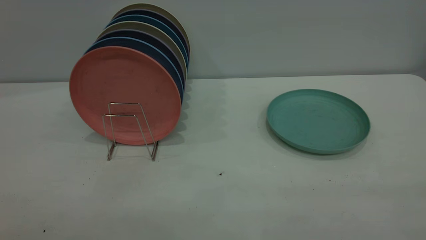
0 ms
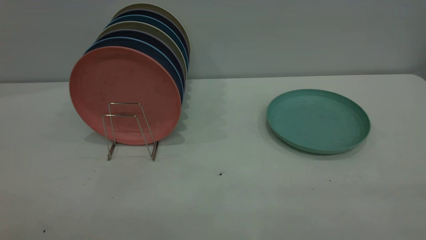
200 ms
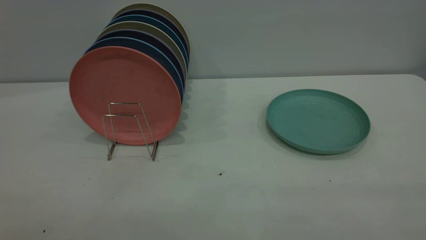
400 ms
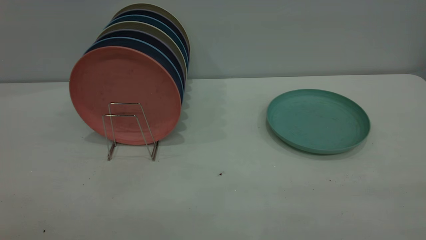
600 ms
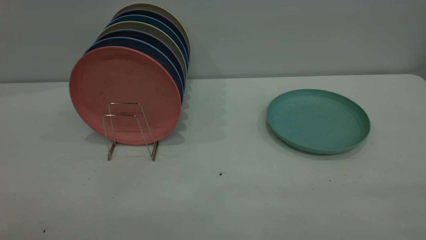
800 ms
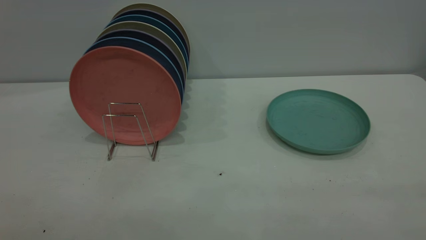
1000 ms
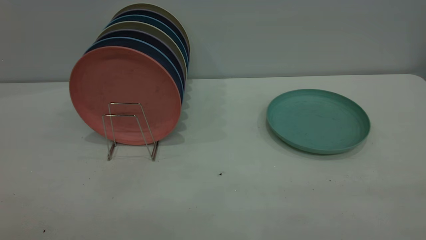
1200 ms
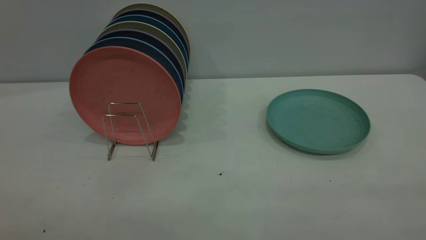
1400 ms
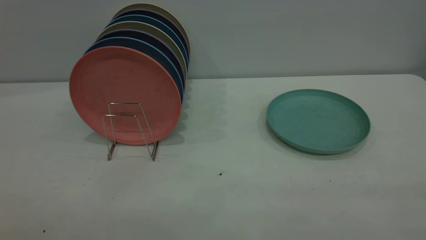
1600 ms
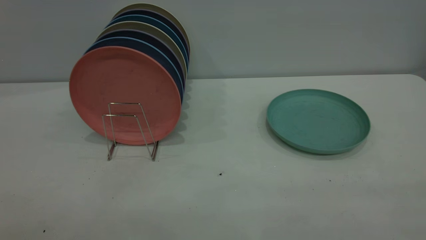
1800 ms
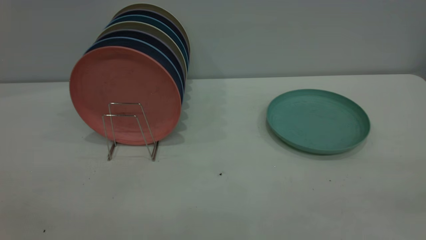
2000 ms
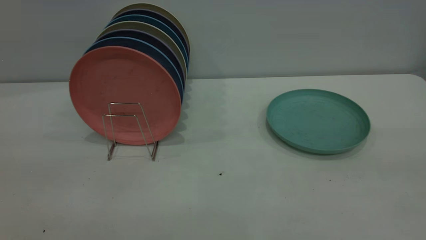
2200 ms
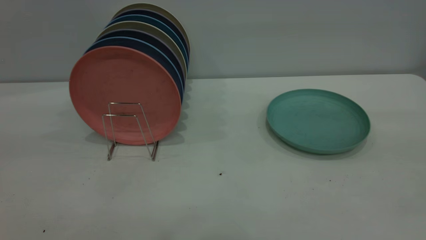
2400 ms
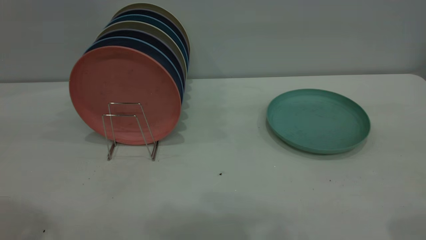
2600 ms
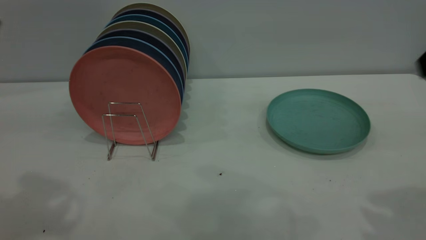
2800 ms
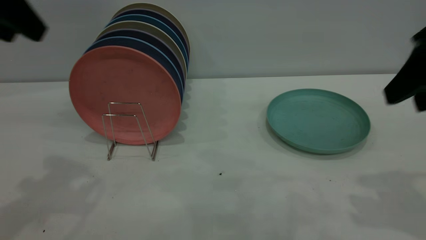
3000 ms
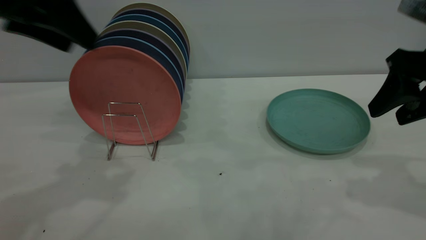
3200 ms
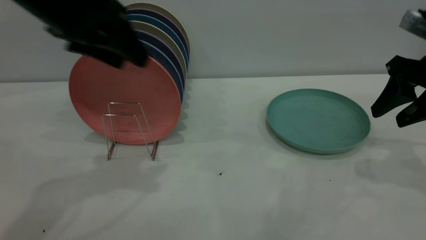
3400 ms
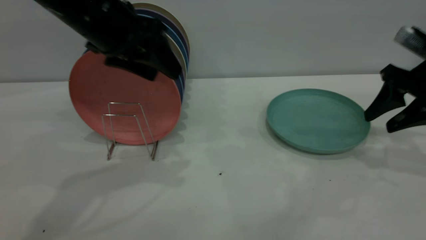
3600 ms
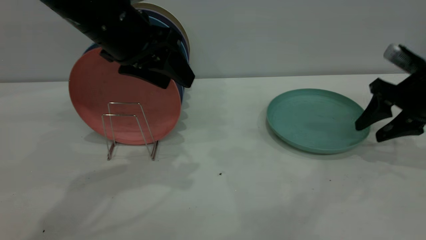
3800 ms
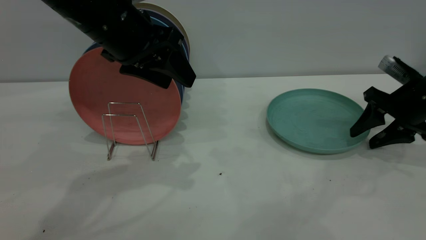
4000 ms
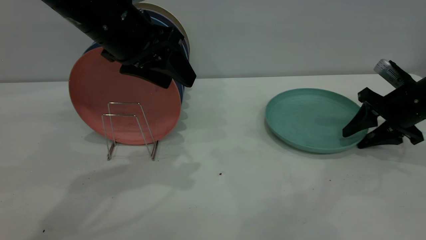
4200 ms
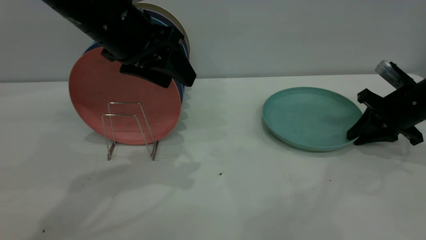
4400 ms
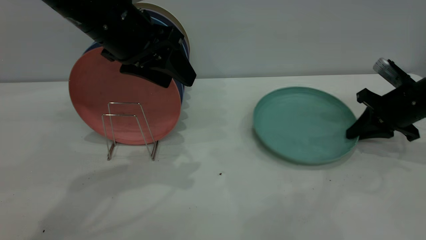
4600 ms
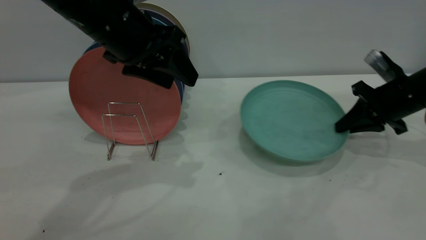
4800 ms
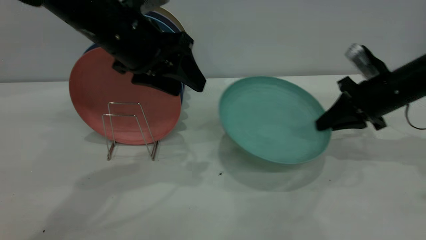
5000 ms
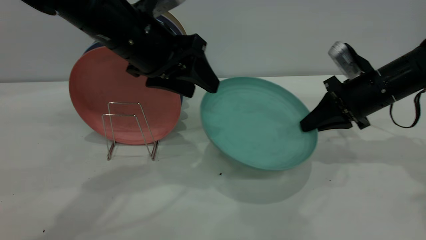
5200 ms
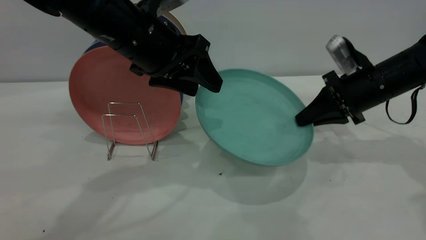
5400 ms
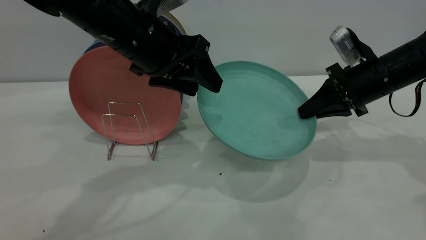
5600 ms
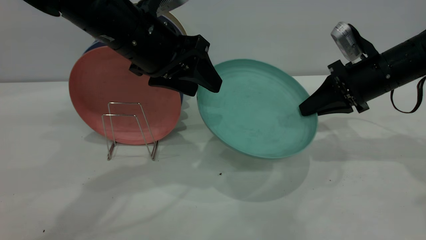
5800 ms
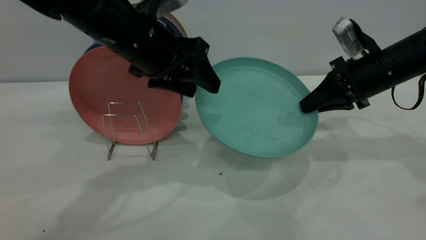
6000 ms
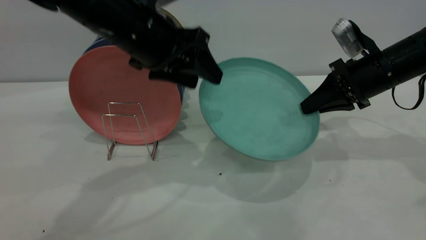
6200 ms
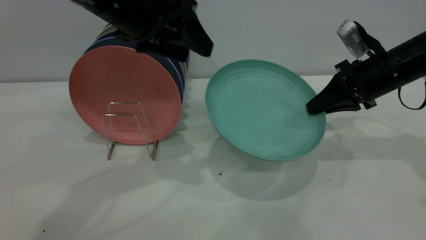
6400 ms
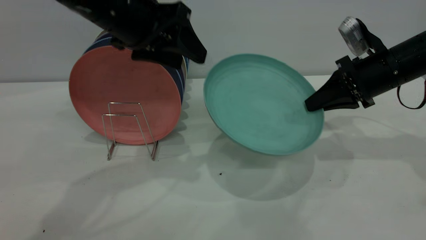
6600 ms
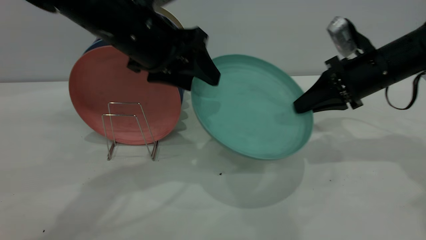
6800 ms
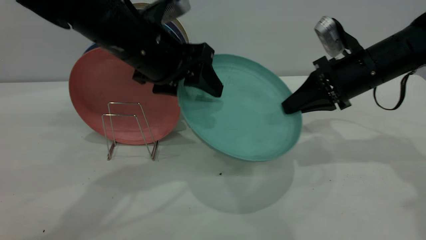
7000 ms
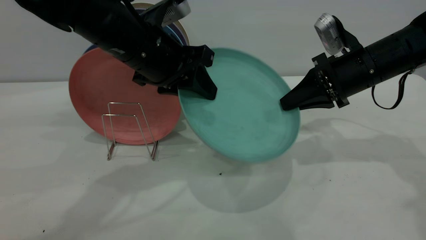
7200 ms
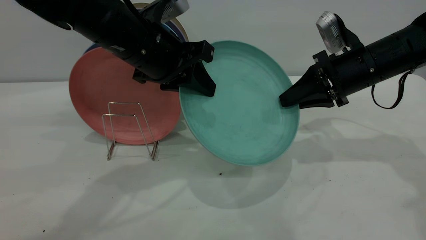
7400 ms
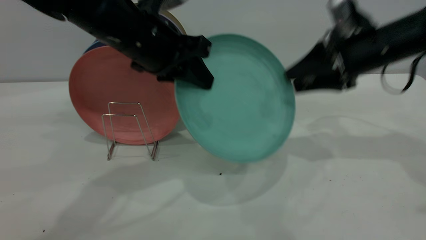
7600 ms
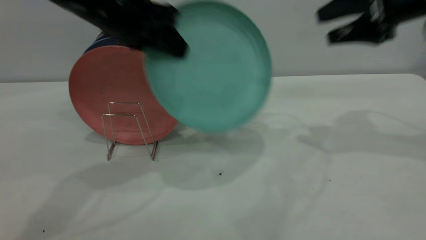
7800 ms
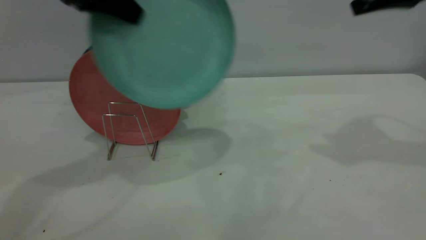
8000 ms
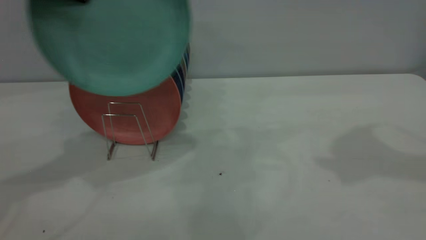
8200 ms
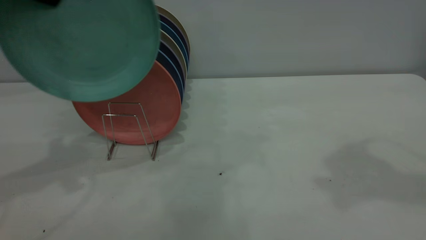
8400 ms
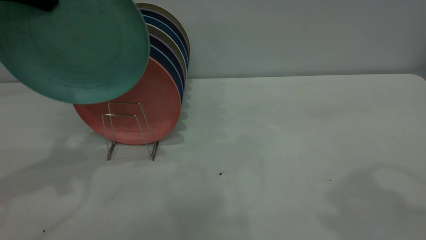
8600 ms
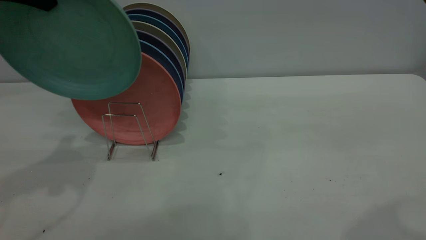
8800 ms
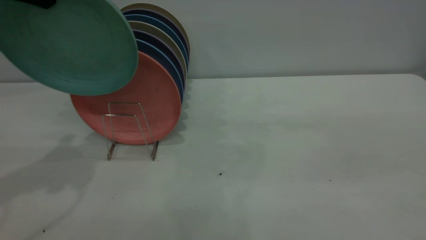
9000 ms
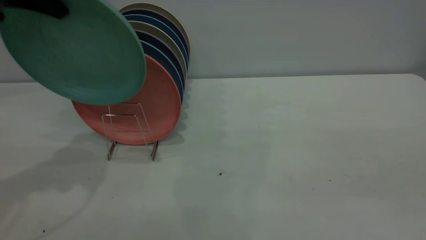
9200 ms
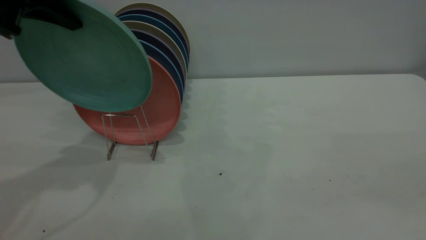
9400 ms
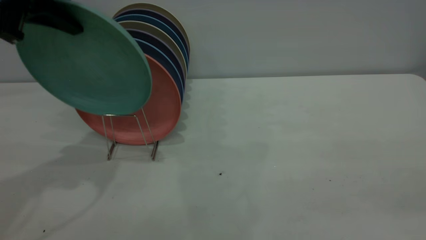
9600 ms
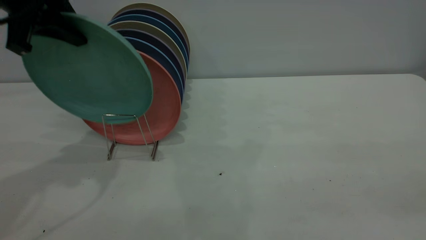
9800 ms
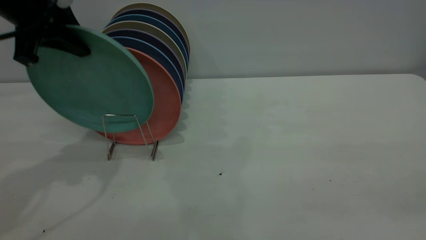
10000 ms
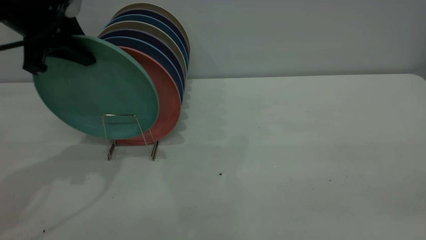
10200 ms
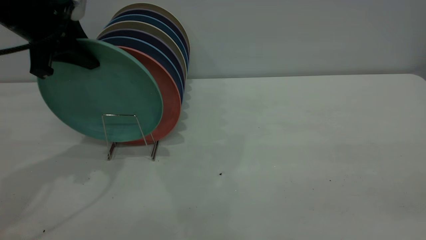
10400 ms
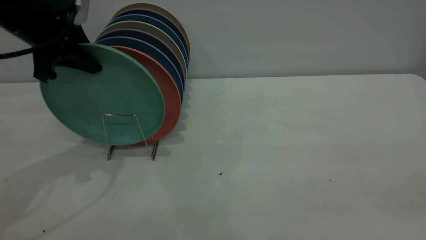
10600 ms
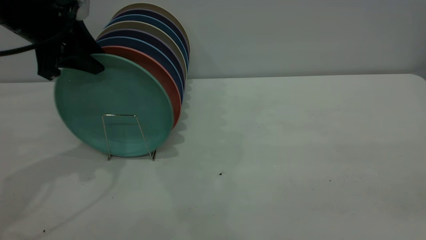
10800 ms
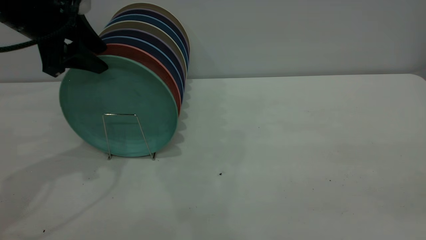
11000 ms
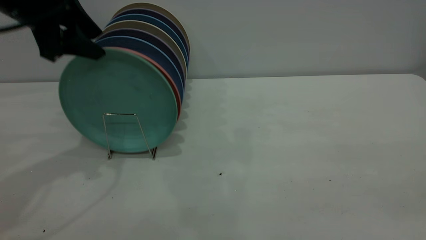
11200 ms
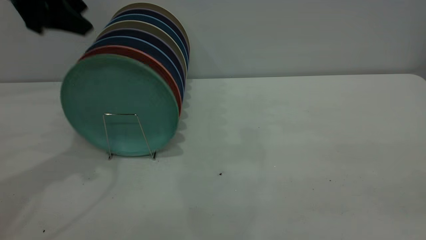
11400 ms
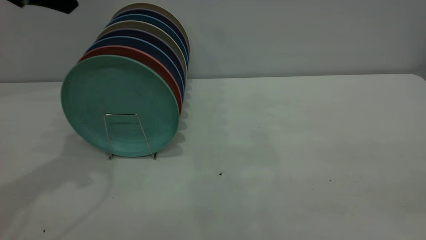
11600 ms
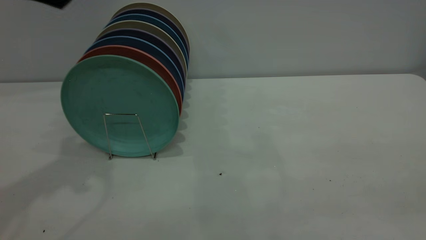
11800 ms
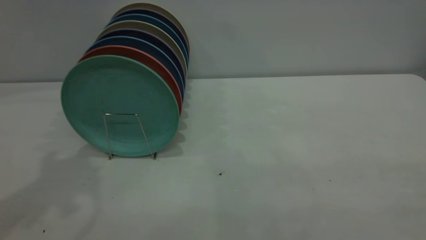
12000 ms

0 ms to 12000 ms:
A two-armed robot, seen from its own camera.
Task of the whole recording: the right gripper grasp the green plate, the right gripper pass the green plate to the left gripper, and the left gripper place the green plate on the plate rack.
Step, 0 ms to 4800 ms: Pick up the plate with the right gripper.
Step, 5000 ms to 7400 ms: Pass the plate from the right gripper to the left gripper.
Step, 7800 ms to 11400 ms: Place the plate on the shelf.
0 ms to 1600 ms: The two grippers keep their place.
1600 ms to 3000 ms: Both grippers move forward, some 30 cm.
3000 ms to 4400 ms: The left gripper travels to the right, downward and forward by about 15 cm, while the right gripper goes some 25 cm downward and forward, and closes up.
4400 ms to 6000 ms: The right gripper goes roughly 10 cm to the left and upward.
6000 ms to 7600 ms: The right gripper heads upward, covering some 5 cm, and opens up, while the left gripper closes up.
7600 ms to 9000 ms: The right gripper heads backward and upward, covering roughly 35 cm; the left gripper heads to the left and upward, covering roughly 20 cm.
9000 ms to 10400 ms: The left gripper goes approximately 10 cm downward.
10400 ms to 12000 ms: The left gripper travels upward and backward by some 20 cm, and opens its fingers.

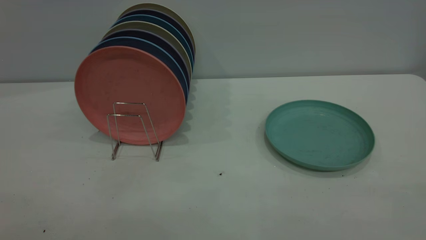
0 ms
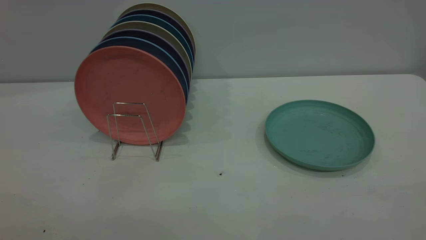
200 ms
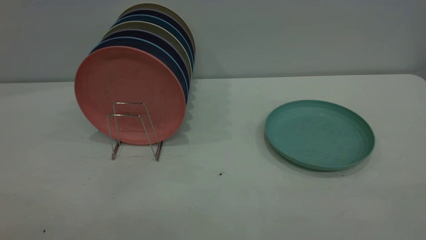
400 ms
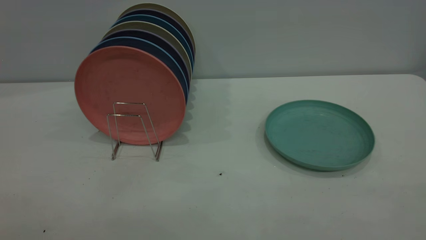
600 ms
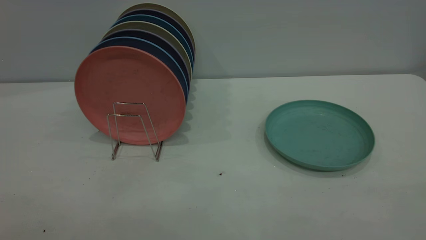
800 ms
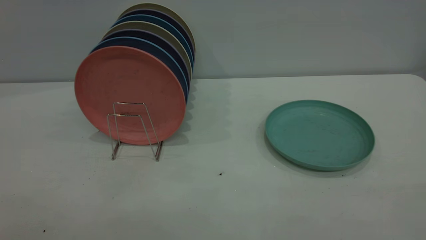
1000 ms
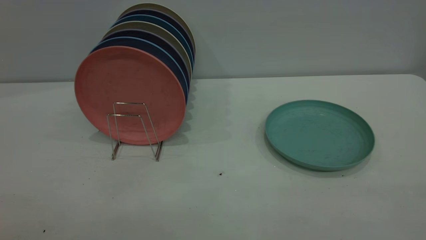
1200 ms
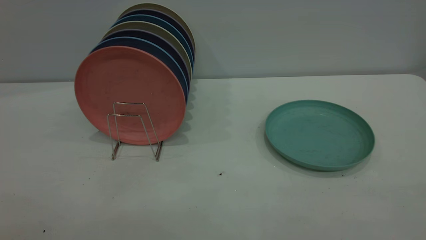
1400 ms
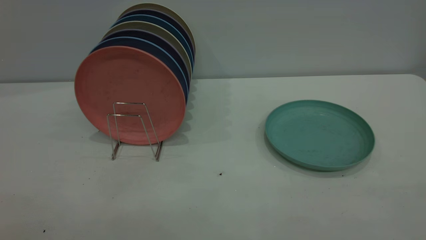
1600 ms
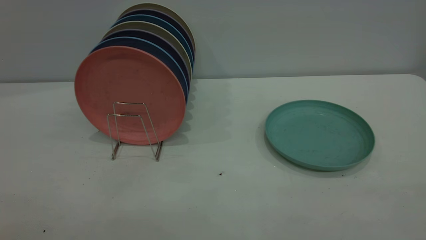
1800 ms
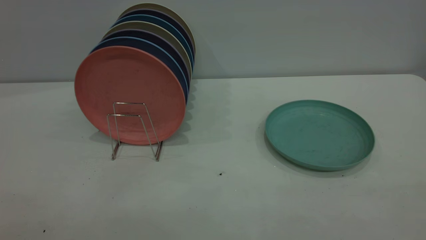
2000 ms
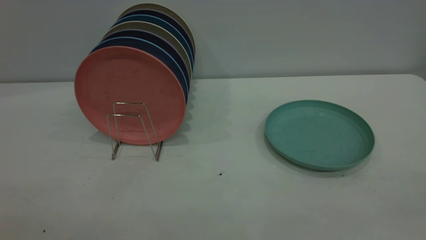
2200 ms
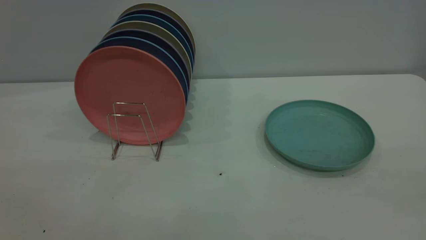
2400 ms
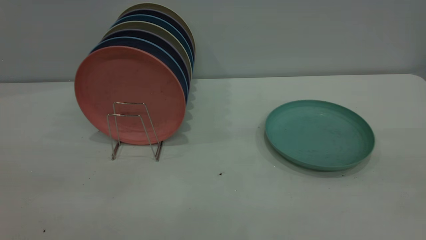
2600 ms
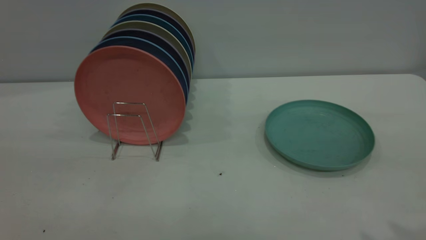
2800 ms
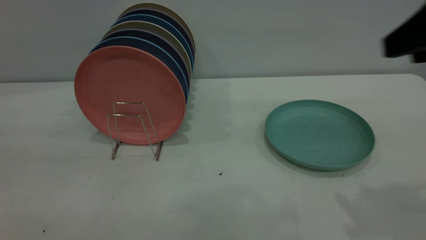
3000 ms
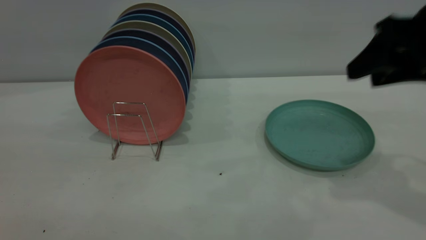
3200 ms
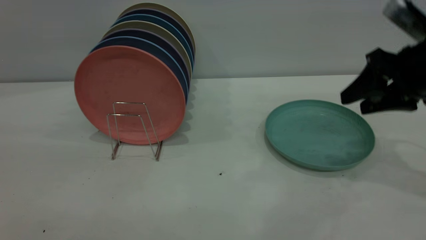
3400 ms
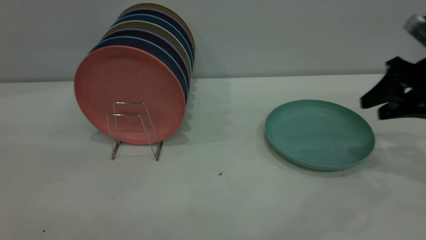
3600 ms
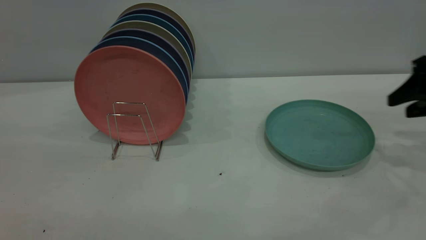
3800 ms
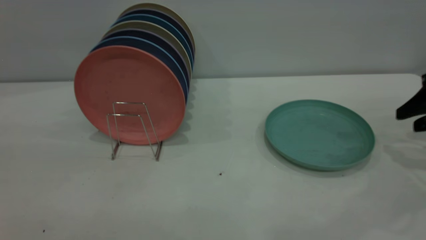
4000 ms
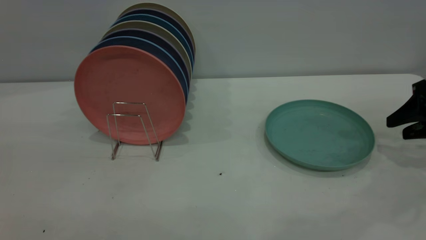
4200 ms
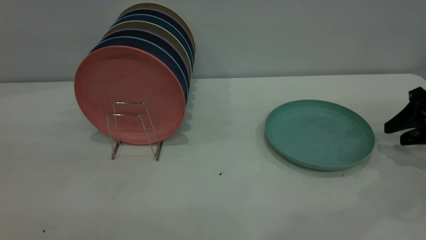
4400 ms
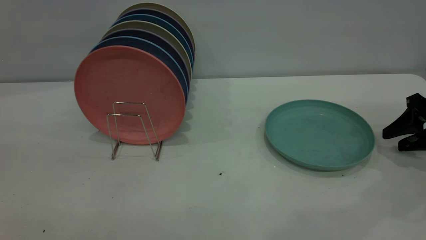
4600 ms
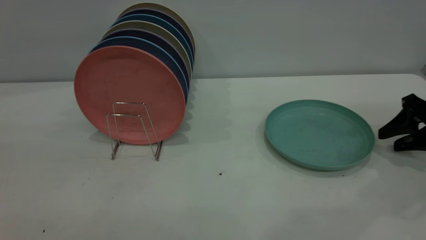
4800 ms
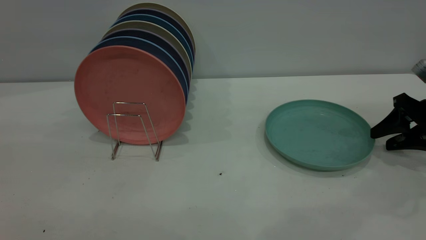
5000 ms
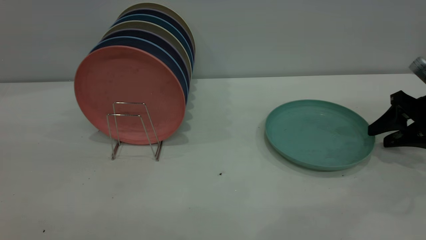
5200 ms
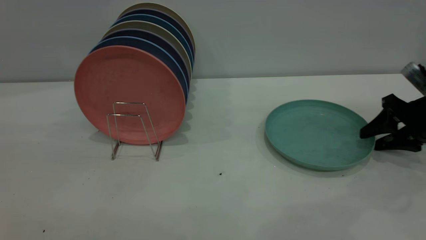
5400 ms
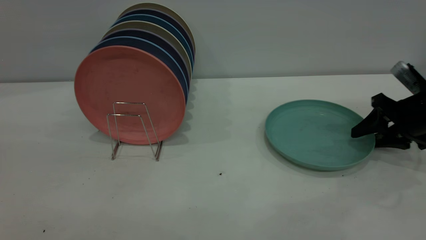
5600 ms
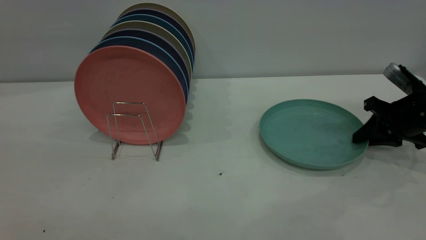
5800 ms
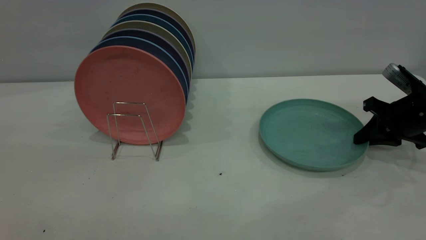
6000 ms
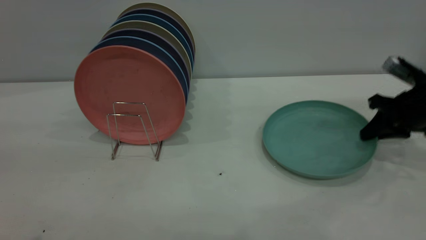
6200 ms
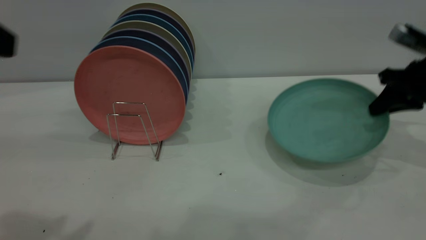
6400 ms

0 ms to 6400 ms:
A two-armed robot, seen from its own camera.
Task of the whole recording: the right gripper grasp the green plate, the right gripper pass the green plate to the left gripper, and the left gripper place the green plate on the plate rack.
0 ms to 1600 ms: Neither gripper changes place.
1600 ms to 3200 ms: The right gripper goes approximately 35 cm forward.
3200 ms to 4800 ms: The right gripper is displaced downward, to the right and forward by approximately 20 cm.
4800 ms to 6400 ms: The left gripper moves forward, approximately 5 cm; the right gripper travels upward by some 5 cm, and closes up.
